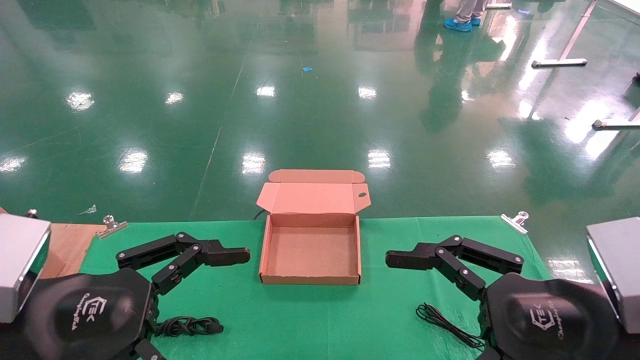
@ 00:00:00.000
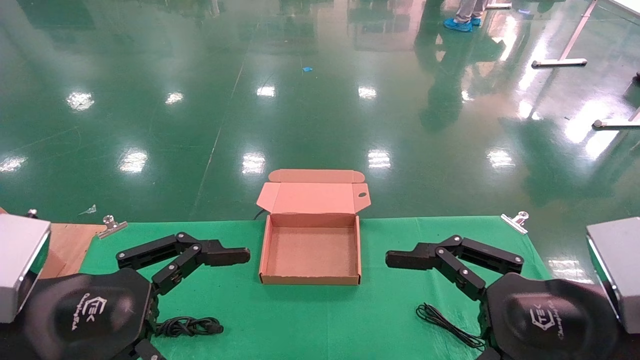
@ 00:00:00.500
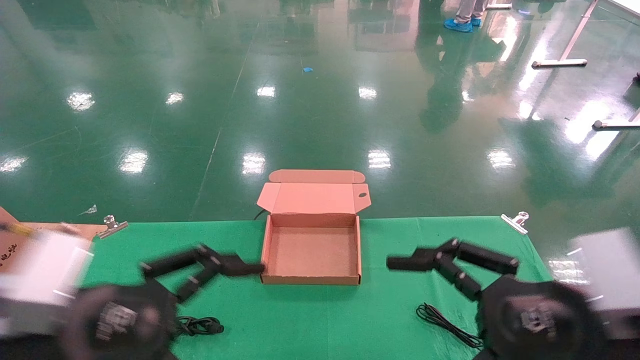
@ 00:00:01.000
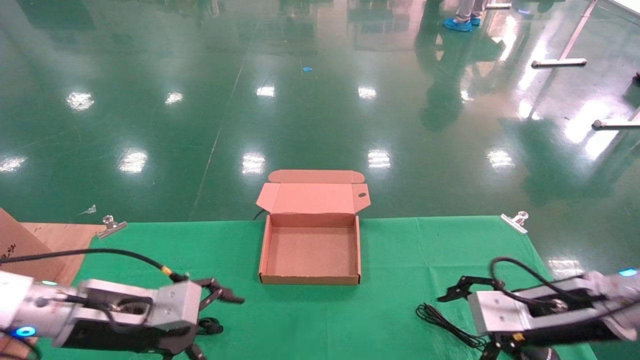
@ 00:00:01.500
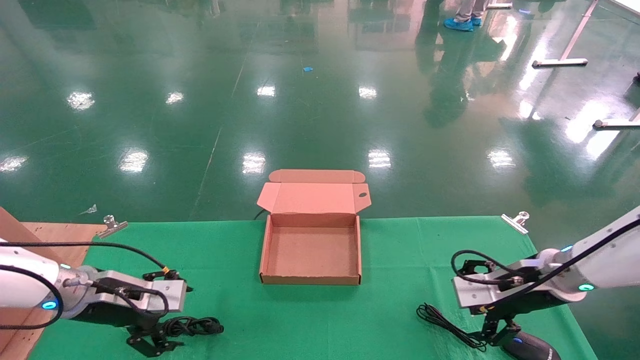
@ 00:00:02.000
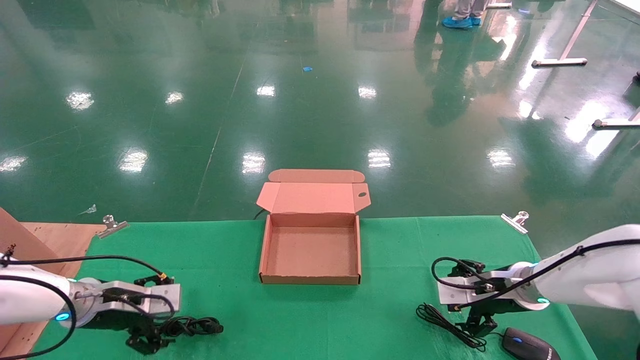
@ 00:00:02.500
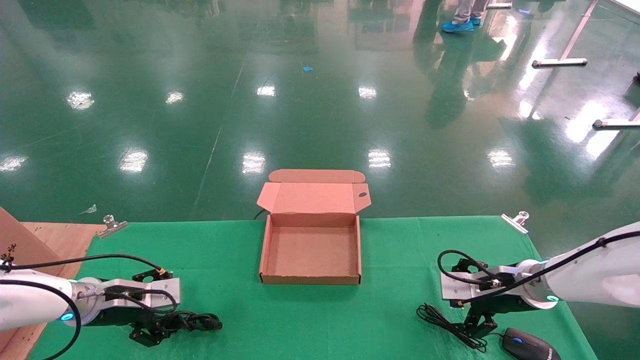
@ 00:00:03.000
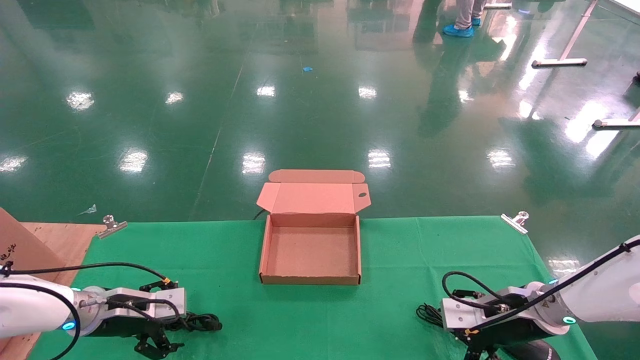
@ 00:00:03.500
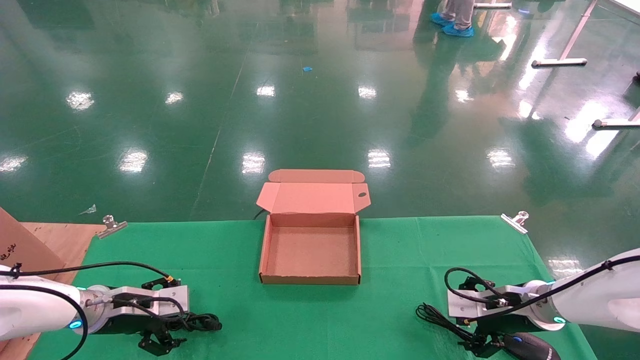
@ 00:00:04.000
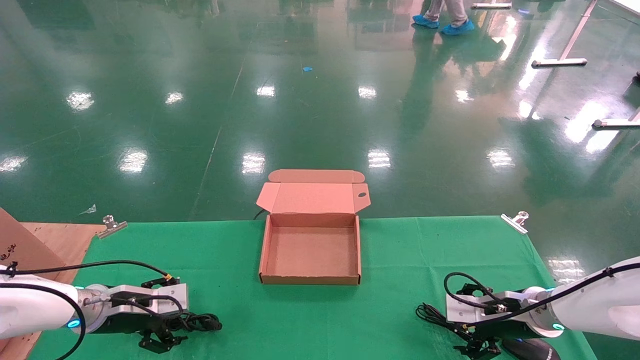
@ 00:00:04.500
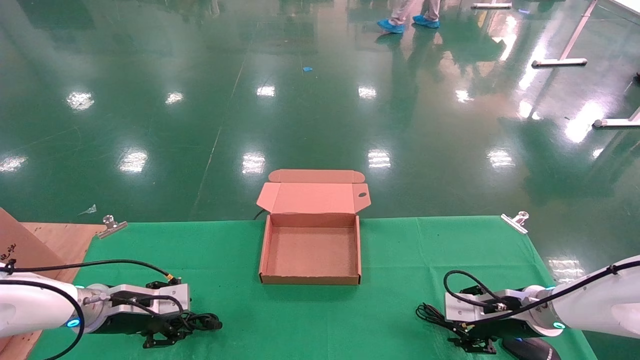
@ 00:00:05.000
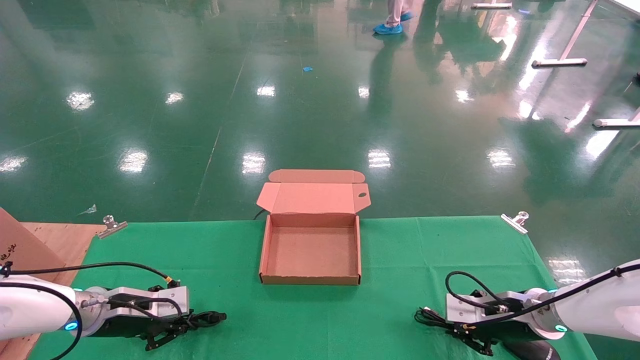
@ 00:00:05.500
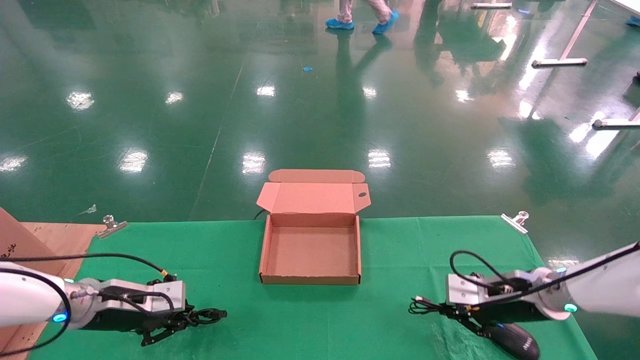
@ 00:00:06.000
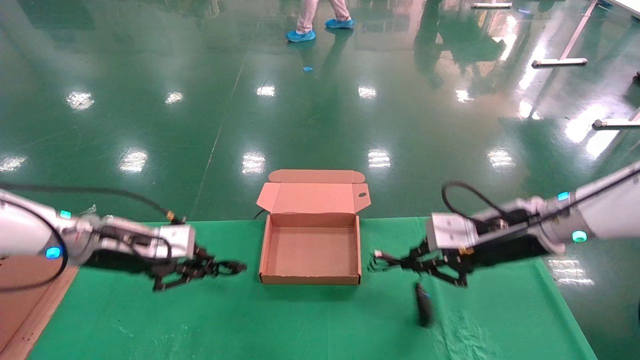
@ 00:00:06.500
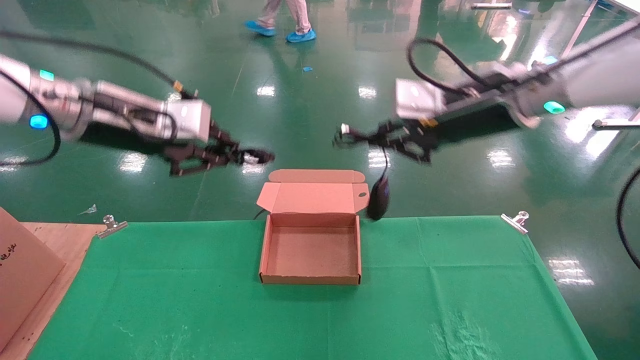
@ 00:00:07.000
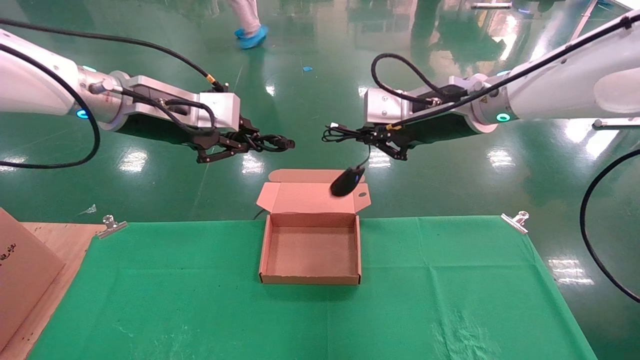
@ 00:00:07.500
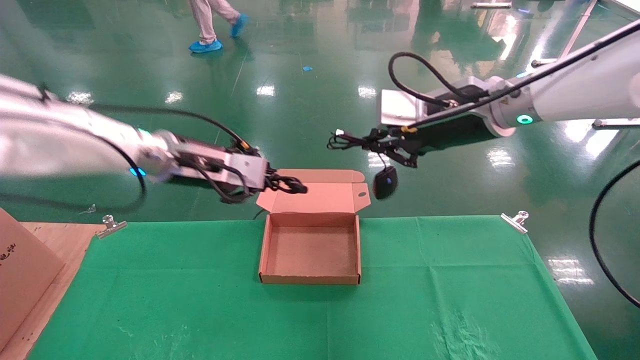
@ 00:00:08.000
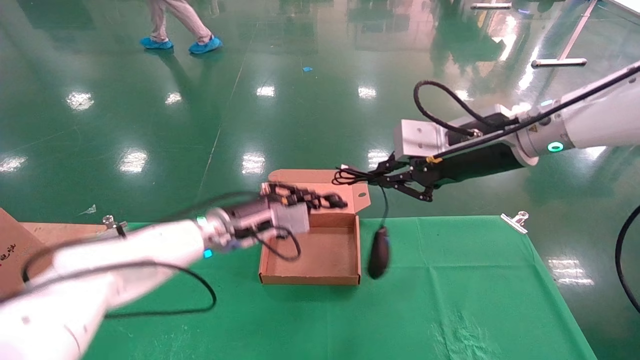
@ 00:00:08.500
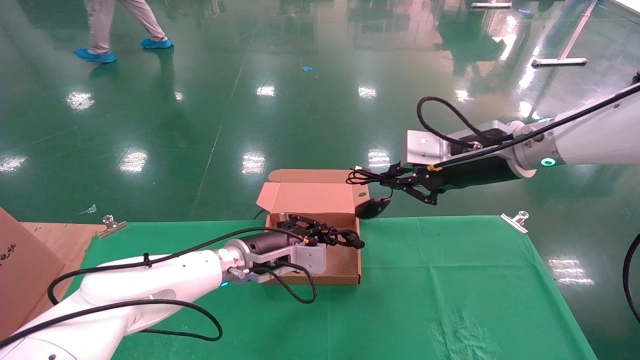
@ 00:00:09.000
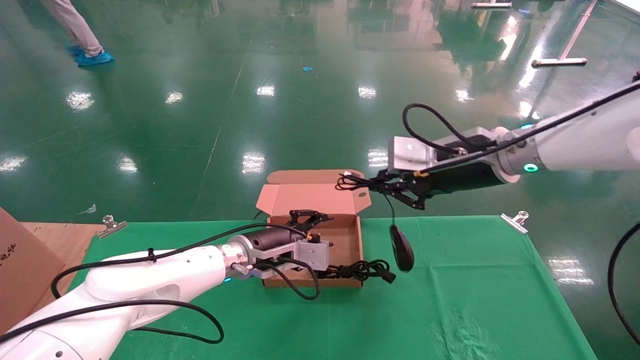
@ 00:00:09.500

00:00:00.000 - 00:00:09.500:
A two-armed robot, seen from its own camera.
Step, 00:00:02.000 - 00:00:06.000: Grab and lift both the mouse and power cord from the accessory packaging area at the same time.
00:00:00.000 - 00:00:02.000: The left gripper travels forward and downward by roughly 25 cm. The right gripper shifts roughly 25 cm forward.
00:00:02.000 - 00:00:04.000: The two grippers go approximately 5 cm downward.
00:00:04.000 - 00:00:05.500: The left gripper closes its fingers. Meanwhile the right gripper closes its fingers.
00:00:05.500 - 00:00:07.500: The right gripper moves upward and to the left, some 35 cm, while the left gripper moves upward, approximately 30 cm.
00:00:07.500 - 00:00:09.500: The right gripper shifts about 5 cm downward, while the left gripper goes approximately 25 cm downward and to the right.

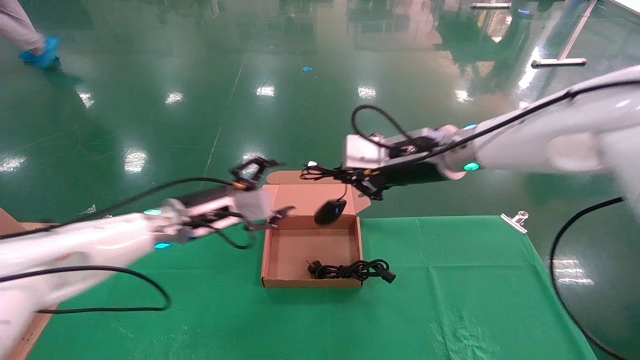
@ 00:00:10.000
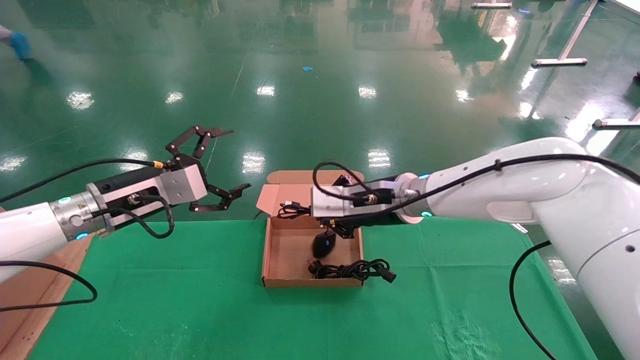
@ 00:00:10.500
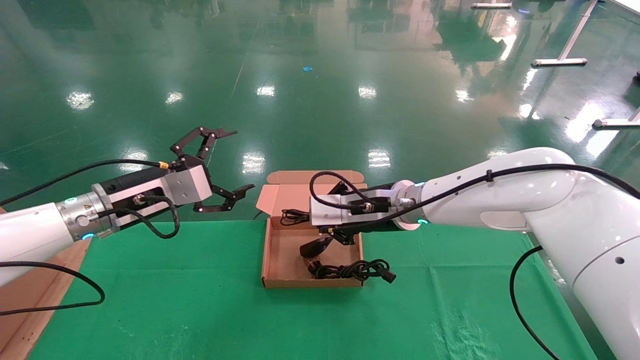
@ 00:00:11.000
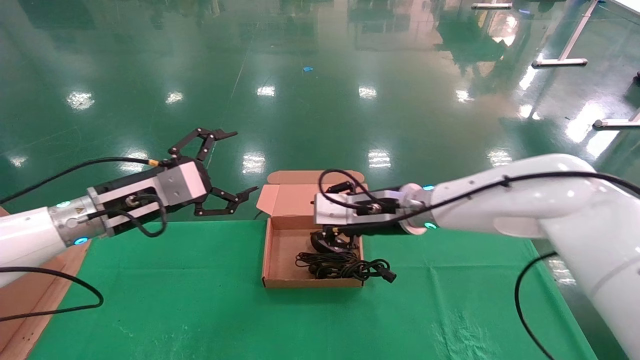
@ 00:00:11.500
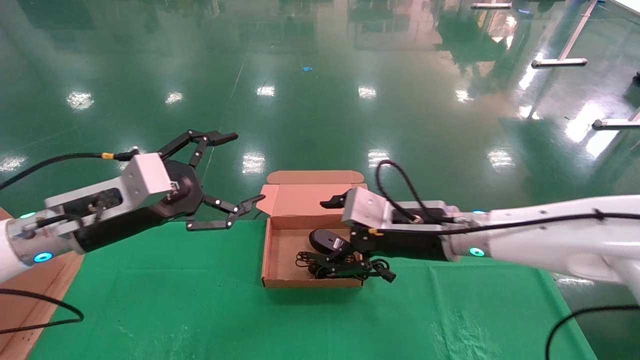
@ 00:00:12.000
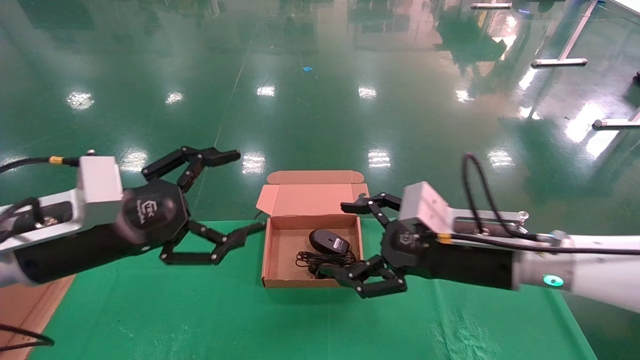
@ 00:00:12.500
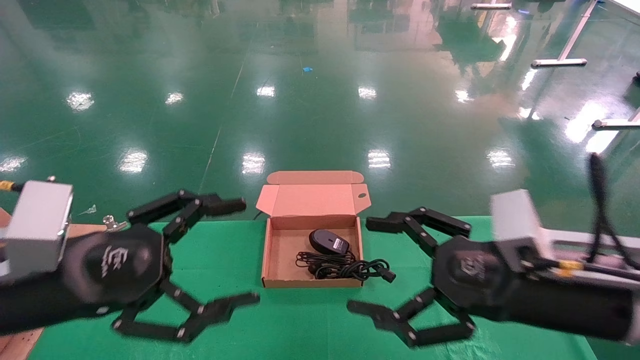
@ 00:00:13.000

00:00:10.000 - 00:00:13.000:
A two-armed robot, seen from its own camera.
00:00:10.000 - 00:00:11.500: The left gripper is displaced to the left and backward by about 10 cm, while the right gripper shifts approximately 10 cm downward.
00:00:11.500 - 00:00:13.000: The right gripper heads backward and to the right, covering approximately 25 cm, and opens. The left gripper travels backward by some 15 cm.

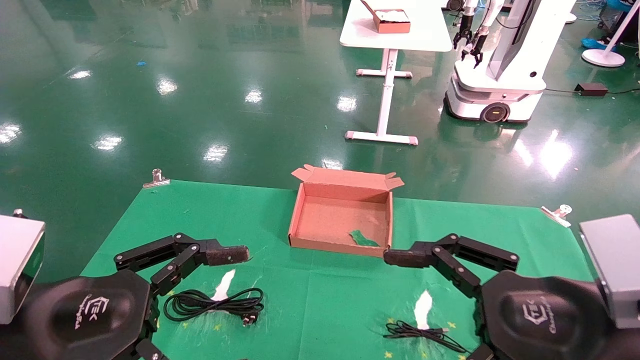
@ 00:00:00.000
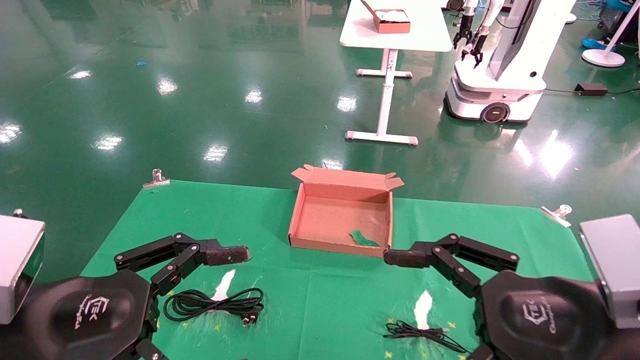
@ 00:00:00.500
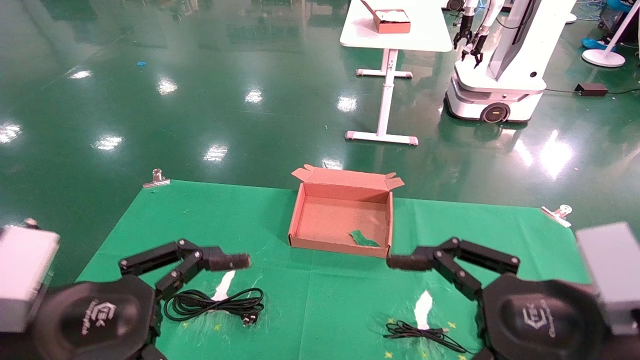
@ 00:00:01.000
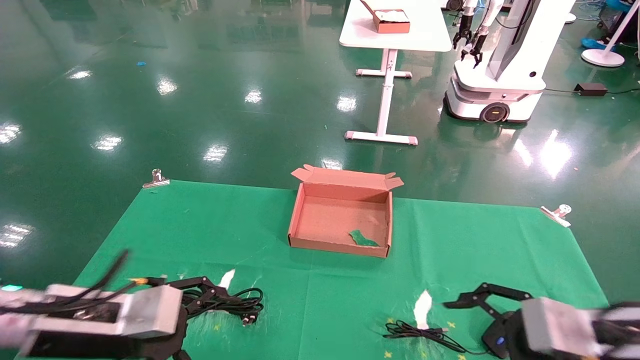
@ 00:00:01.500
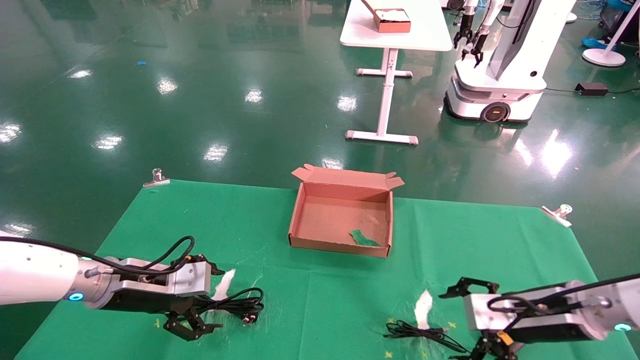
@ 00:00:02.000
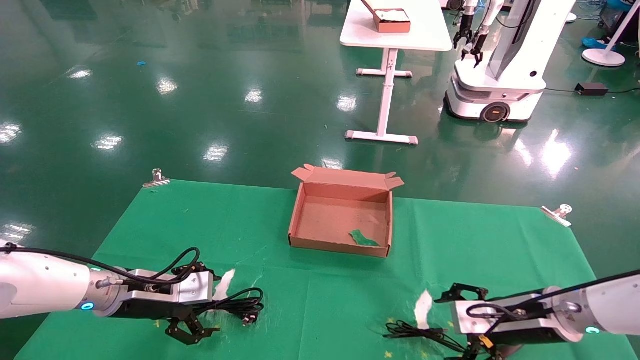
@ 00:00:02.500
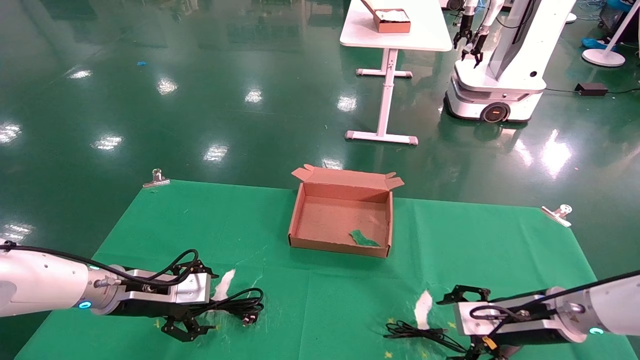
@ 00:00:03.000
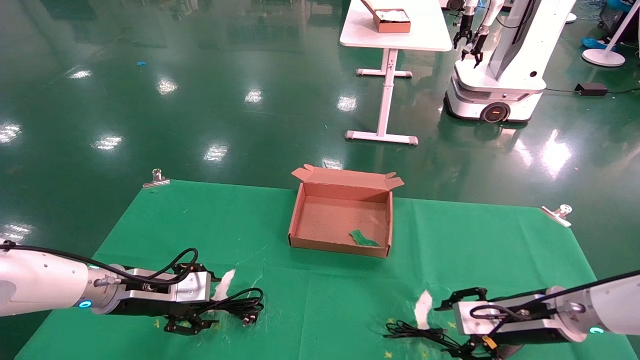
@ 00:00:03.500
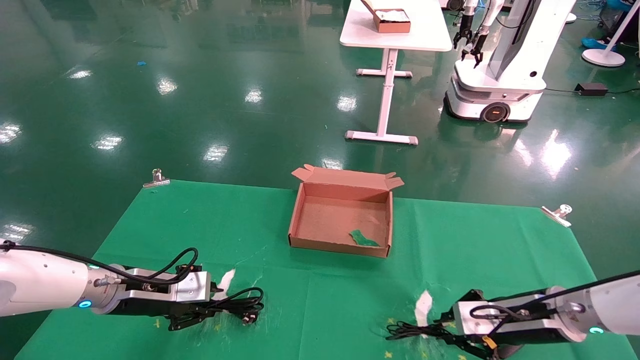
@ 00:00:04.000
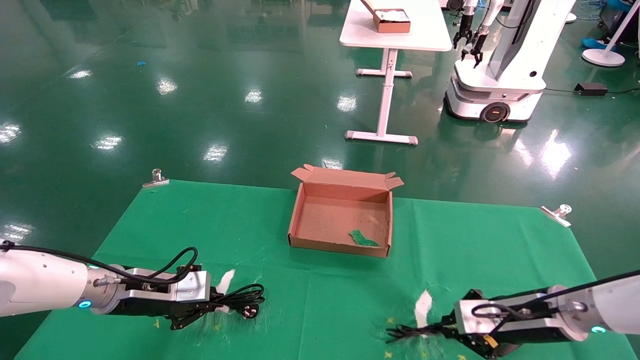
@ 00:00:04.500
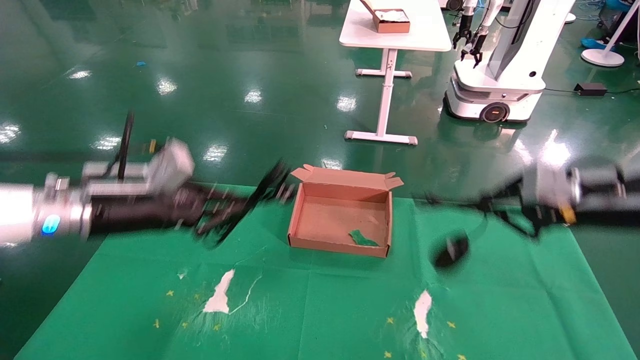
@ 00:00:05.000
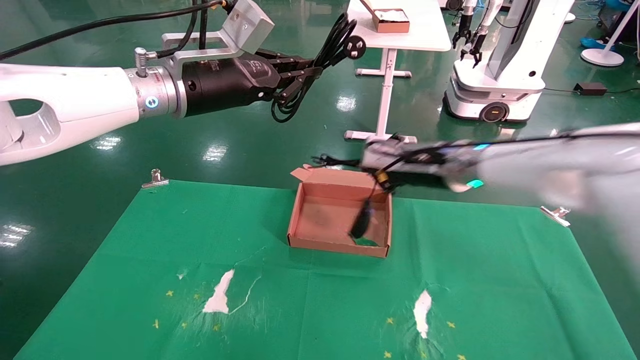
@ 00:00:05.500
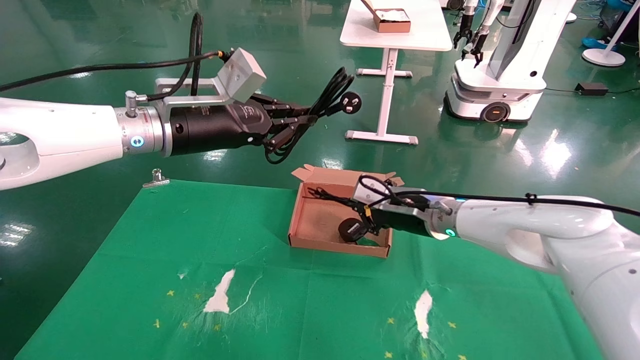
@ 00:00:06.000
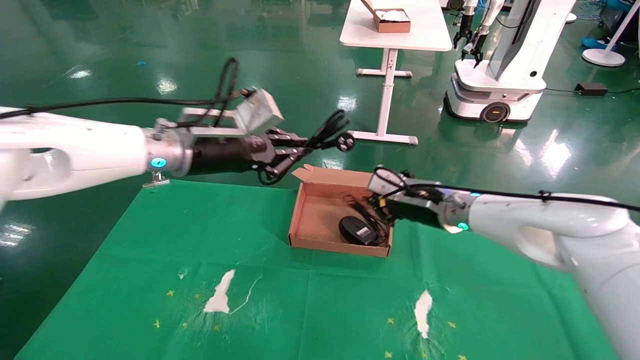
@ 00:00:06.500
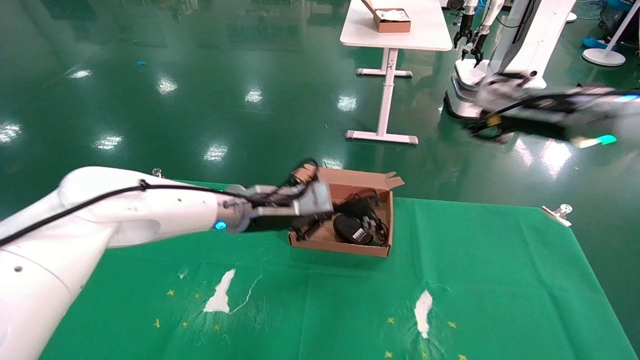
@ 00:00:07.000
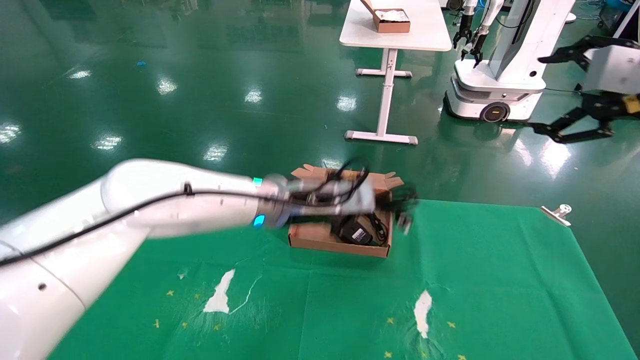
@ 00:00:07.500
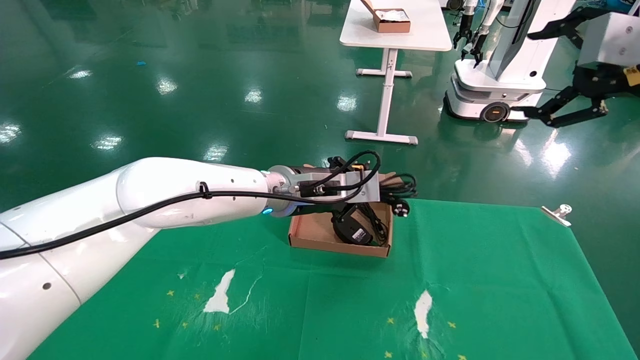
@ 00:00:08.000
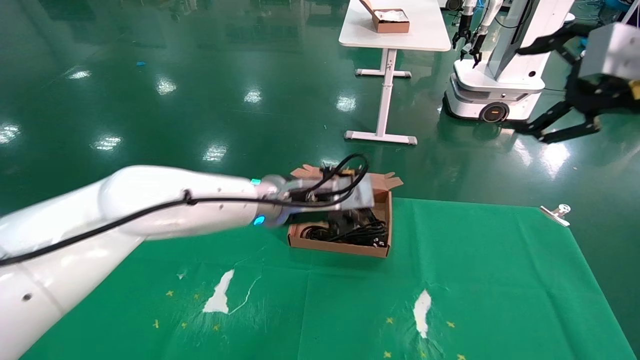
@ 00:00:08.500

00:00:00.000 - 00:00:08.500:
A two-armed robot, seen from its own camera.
Step, 00:00:01.500 - 00:00:04.000: Grab and lift both the mouse and power cord from the accessory packaging area at the same time.
00:00:00.000 - 00:00:02.000: The left gripper is displaced forward by approximately 20 cm; the right gripper moves forward and downward, roughly 20 cm.
00:00:02.000 - 00:00:04.000: The left gripper closes. Meanwhile the right gripper closes up.
00:00:04.000 - 00:00:06.500: The right gripper heads upward, to the left and forward, covering roughly 20 cm; the left gripper travels upward and to the right by about 25 cm, and closes its fingers.
00:00:06.500 - 00:00:08.500: The left gripper goes roughly 15 cm to the right and downward, while the right gripper moves backward, to the right and upward, approximately 30 cm, and opens up.
